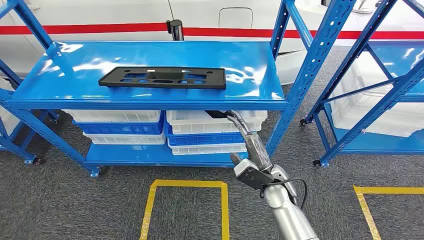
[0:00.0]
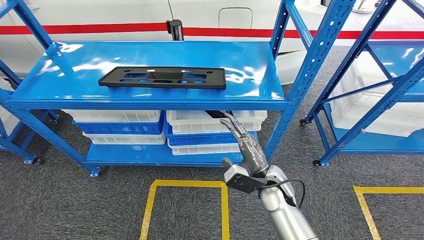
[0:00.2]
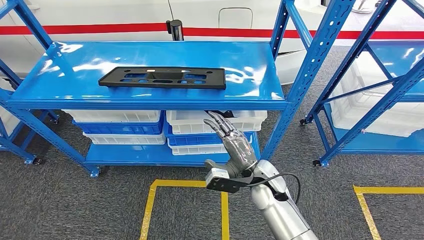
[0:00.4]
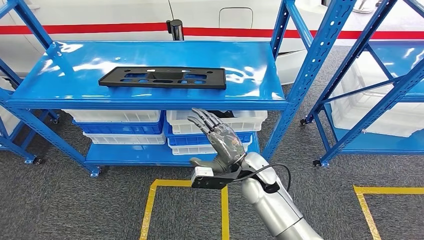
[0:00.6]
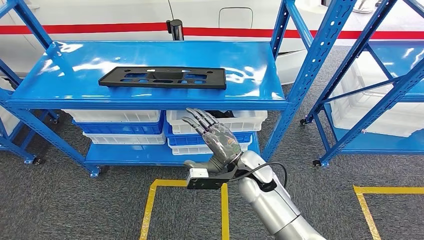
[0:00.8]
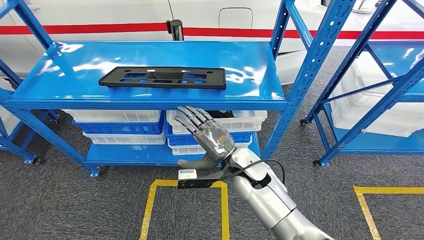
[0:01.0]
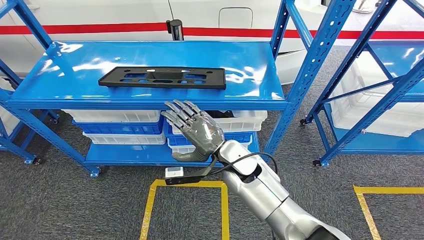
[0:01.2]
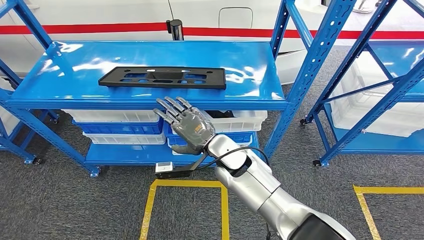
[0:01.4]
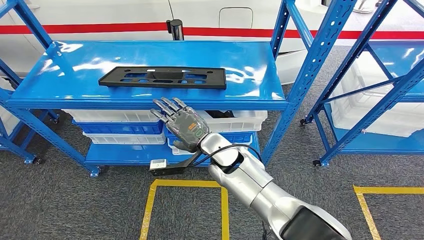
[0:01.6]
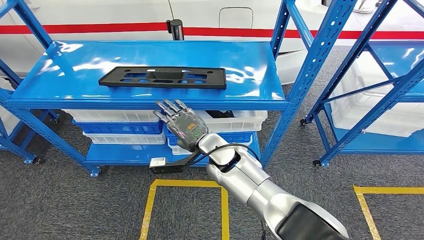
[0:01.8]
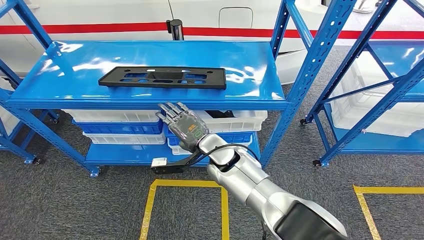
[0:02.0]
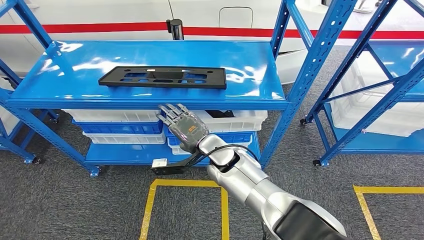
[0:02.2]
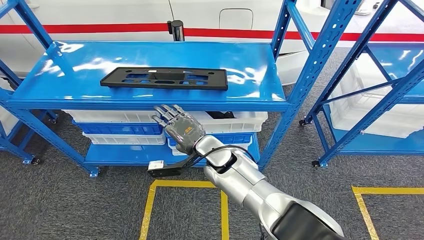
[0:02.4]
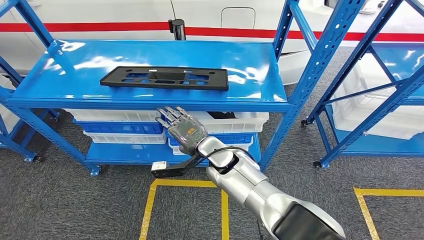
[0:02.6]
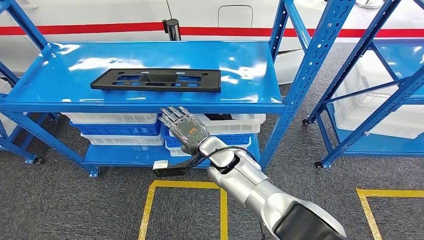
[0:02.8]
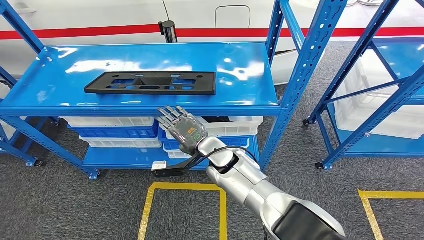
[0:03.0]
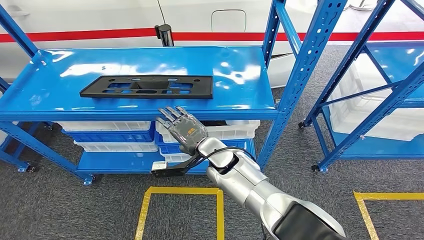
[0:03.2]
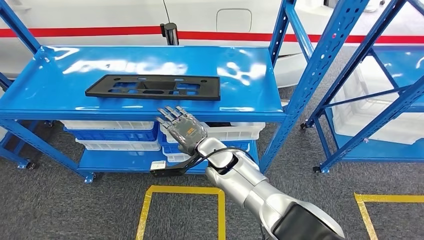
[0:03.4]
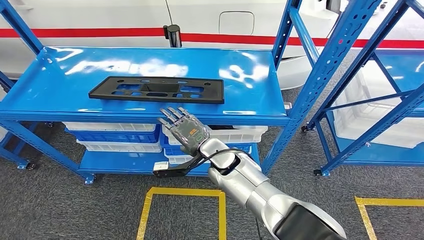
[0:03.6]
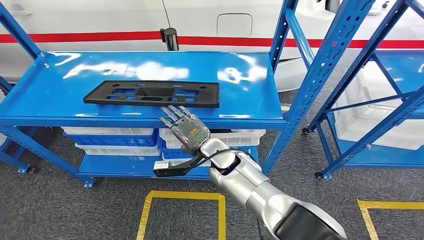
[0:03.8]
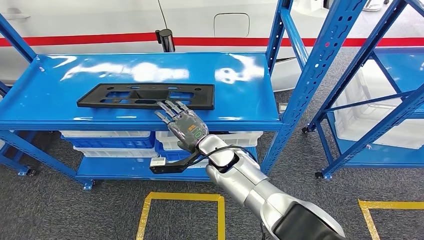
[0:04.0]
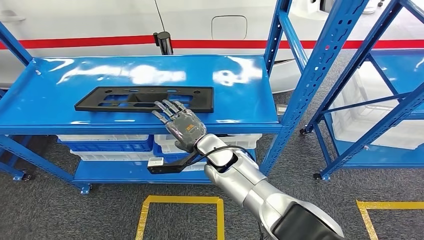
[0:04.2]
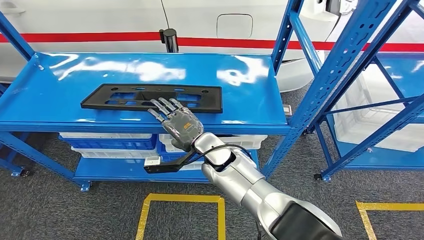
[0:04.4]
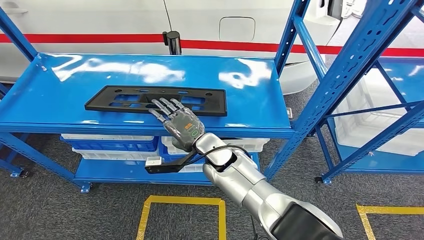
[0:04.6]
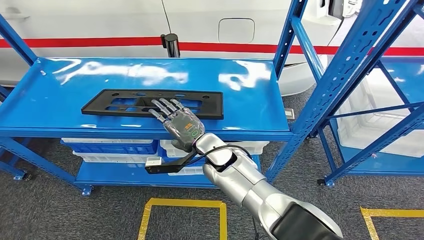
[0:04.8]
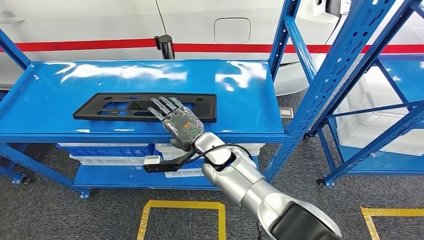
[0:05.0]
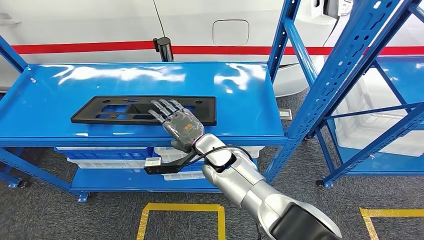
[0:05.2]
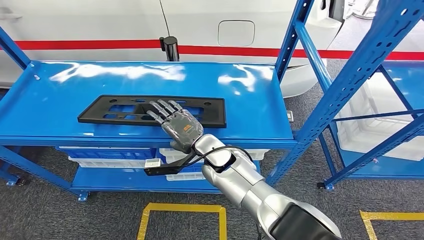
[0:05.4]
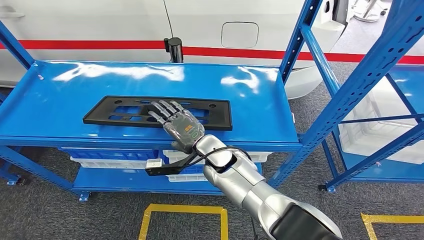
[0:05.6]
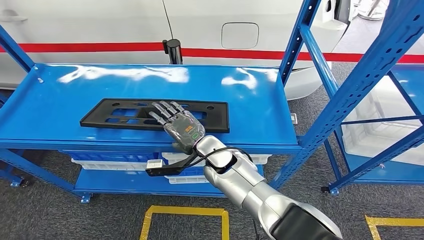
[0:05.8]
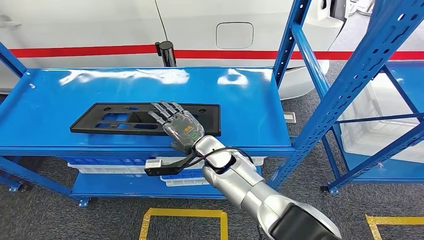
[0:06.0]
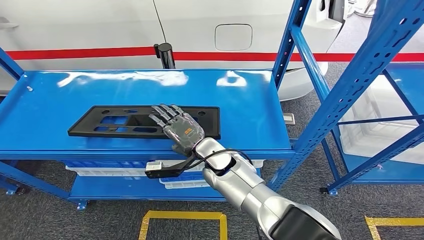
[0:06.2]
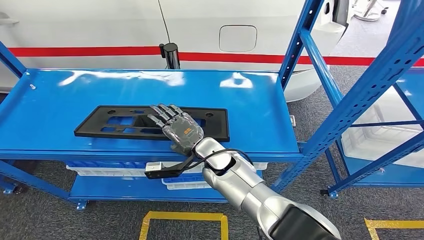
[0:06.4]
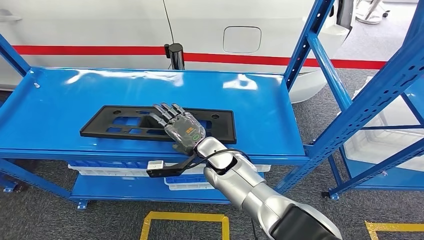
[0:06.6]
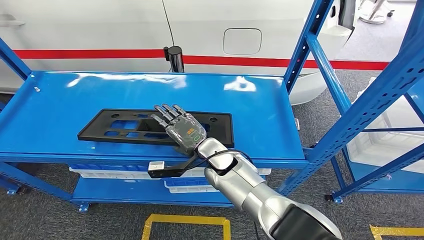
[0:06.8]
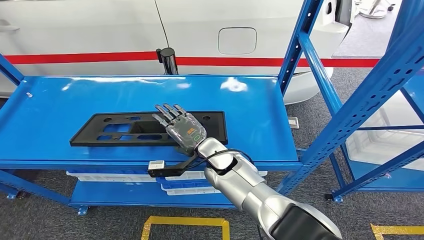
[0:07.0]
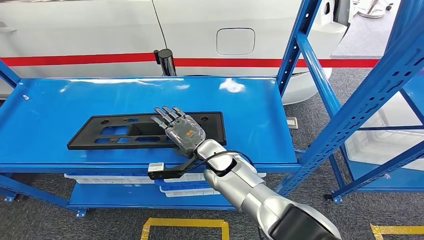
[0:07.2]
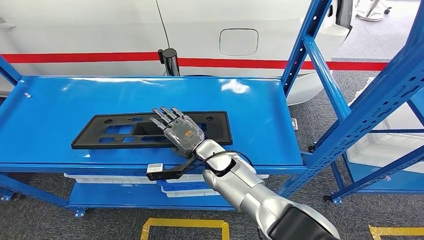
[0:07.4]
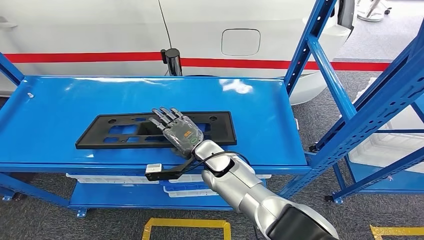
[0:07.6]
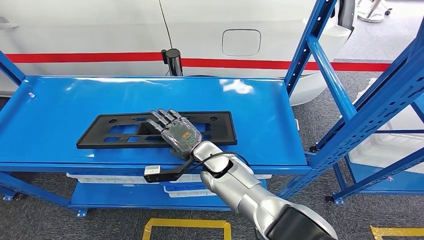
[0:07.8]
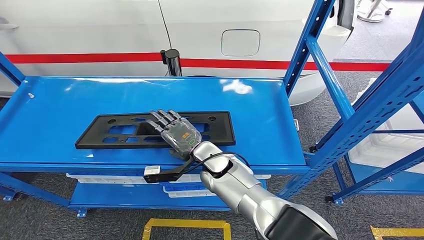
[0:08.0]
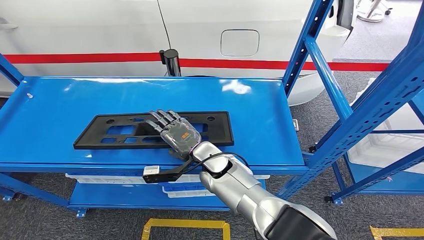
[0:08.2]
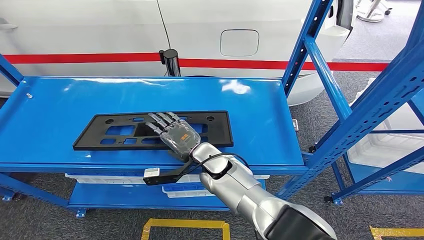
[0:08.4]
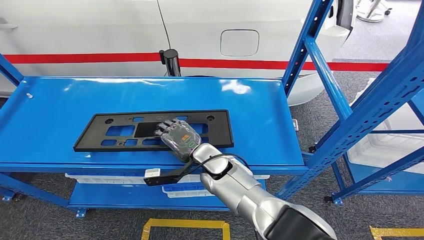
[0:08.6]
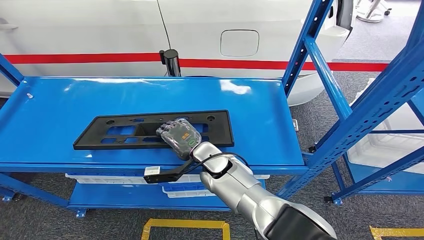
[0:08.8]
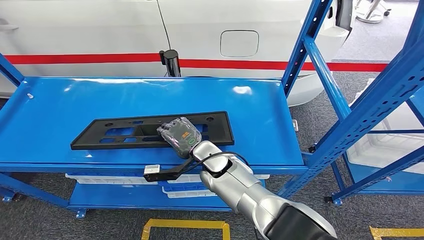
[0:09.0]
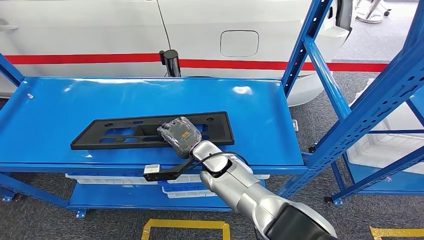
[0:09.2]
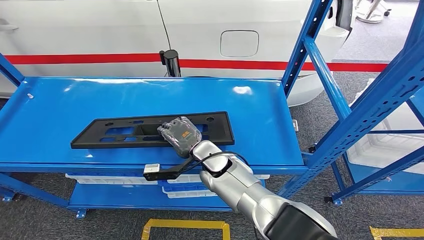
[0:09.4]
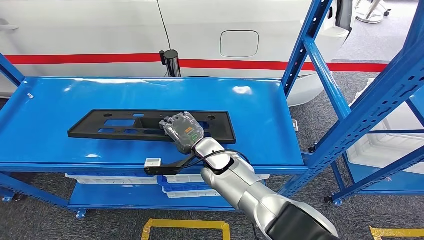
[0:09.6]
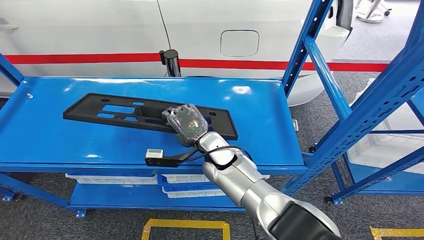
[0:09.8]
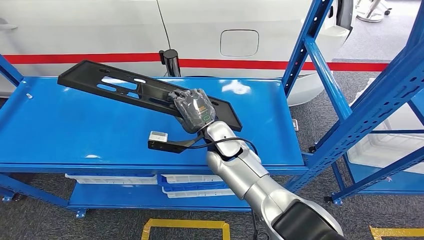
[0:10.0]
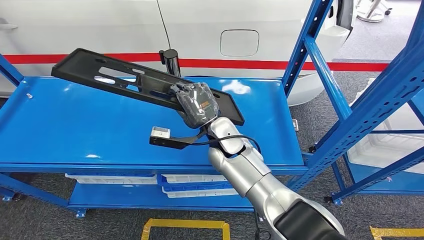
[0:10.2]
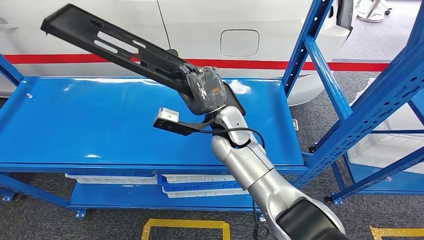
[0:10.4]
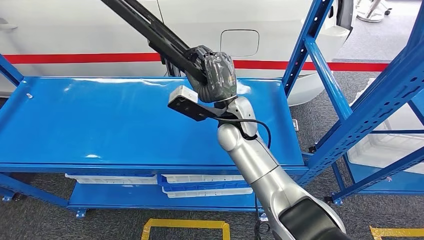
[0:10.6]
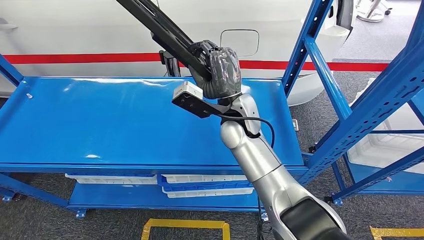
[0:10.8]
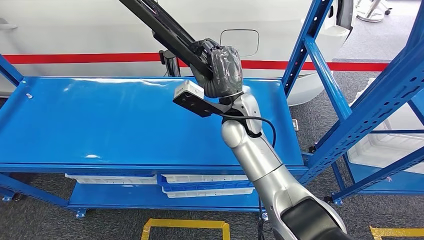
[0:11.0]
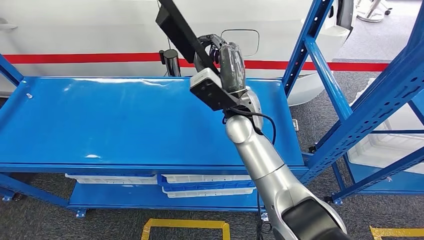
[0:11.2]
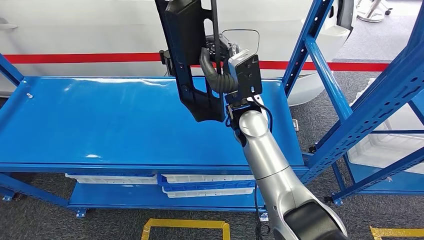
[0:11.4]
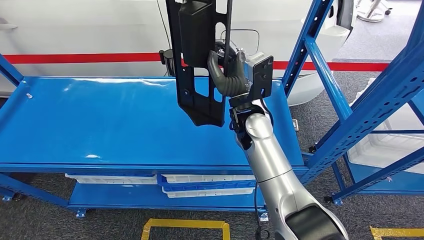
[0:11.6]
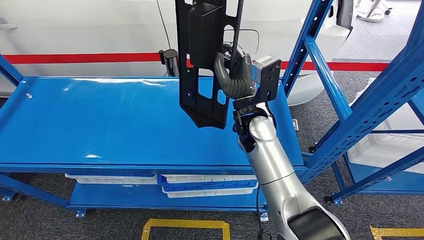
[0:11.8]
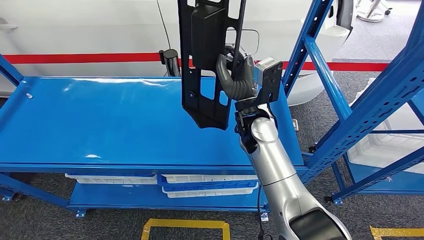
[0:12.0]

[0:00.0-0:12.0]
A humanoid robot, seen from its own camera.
0:07.6 to 0:09.0: Both hands stay about where they are.

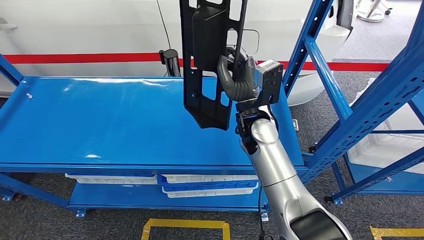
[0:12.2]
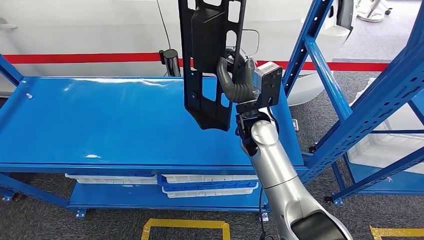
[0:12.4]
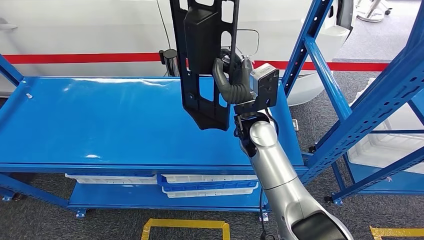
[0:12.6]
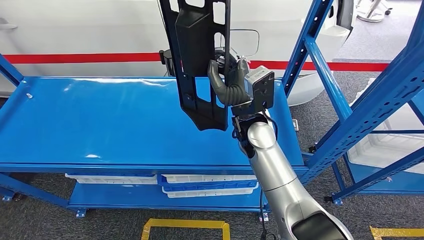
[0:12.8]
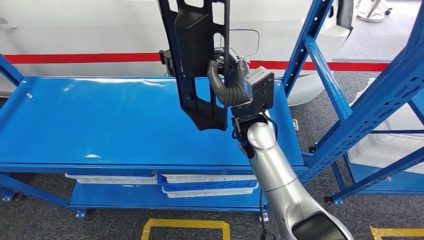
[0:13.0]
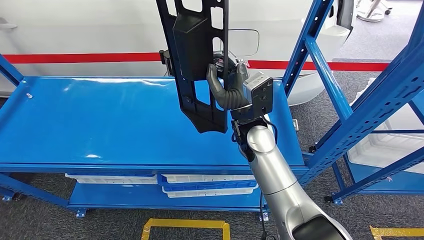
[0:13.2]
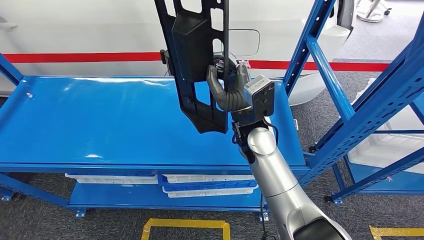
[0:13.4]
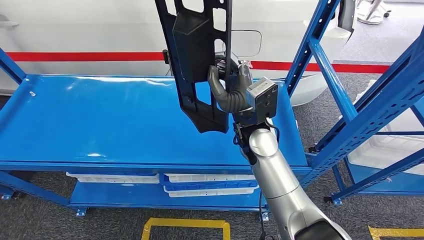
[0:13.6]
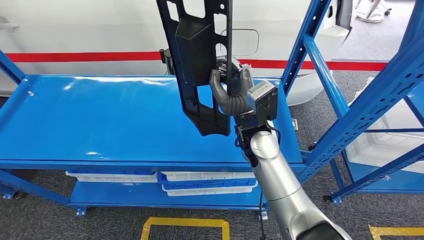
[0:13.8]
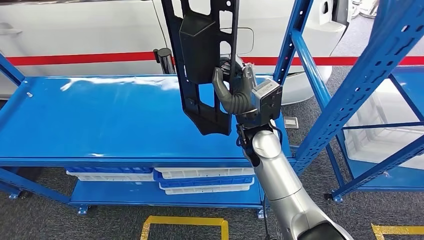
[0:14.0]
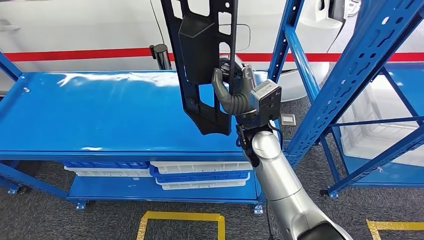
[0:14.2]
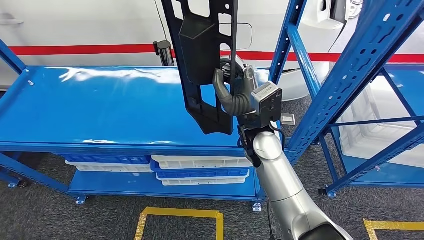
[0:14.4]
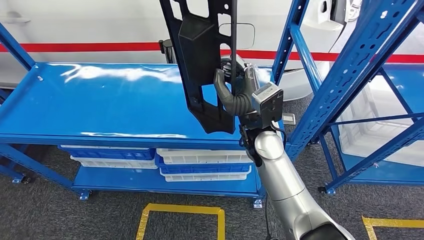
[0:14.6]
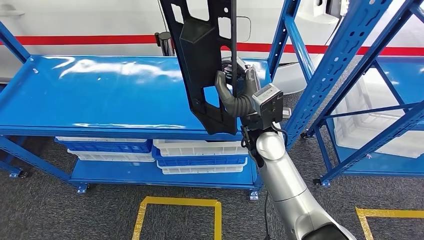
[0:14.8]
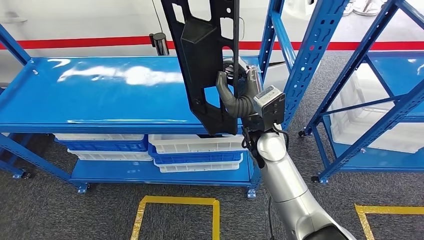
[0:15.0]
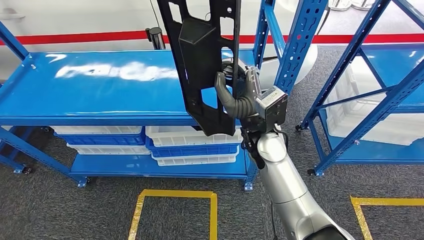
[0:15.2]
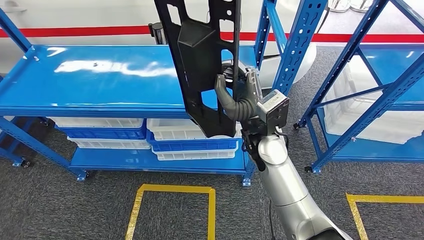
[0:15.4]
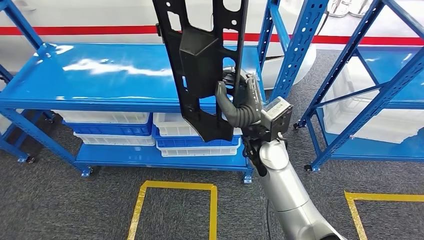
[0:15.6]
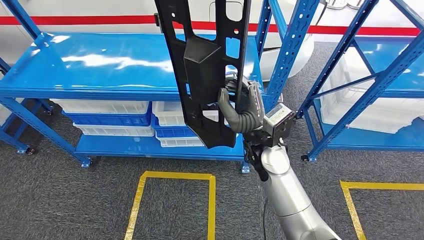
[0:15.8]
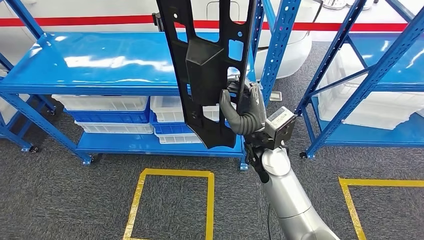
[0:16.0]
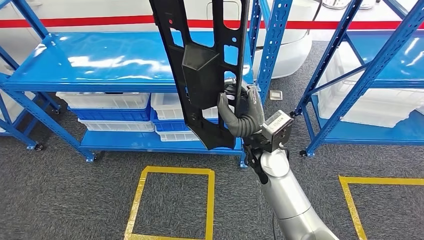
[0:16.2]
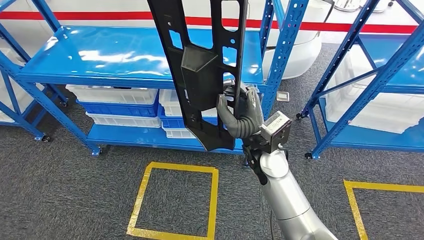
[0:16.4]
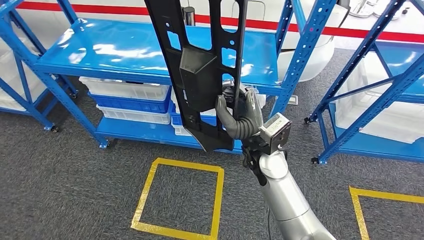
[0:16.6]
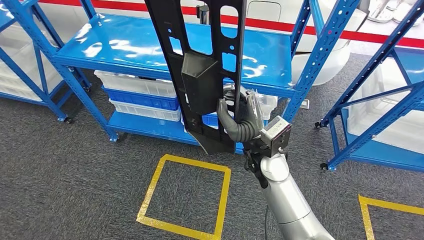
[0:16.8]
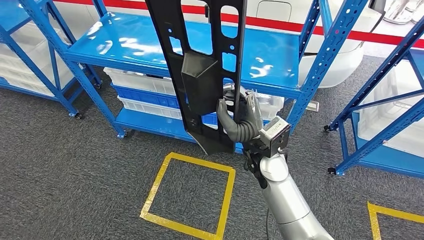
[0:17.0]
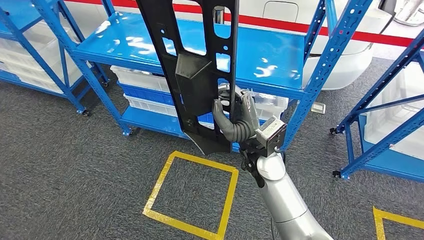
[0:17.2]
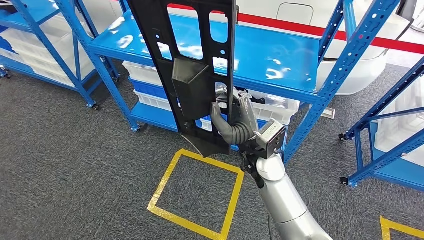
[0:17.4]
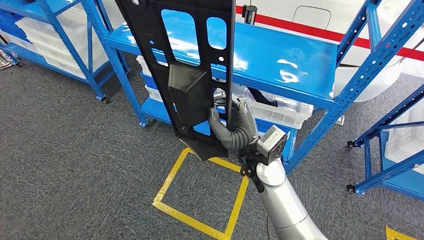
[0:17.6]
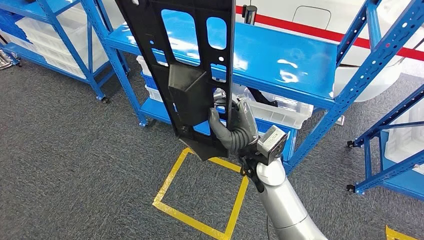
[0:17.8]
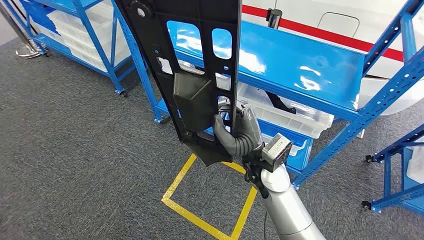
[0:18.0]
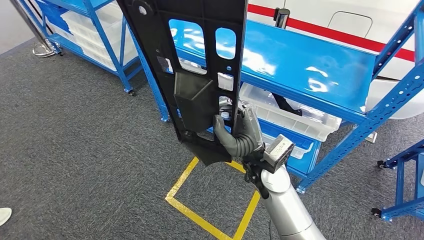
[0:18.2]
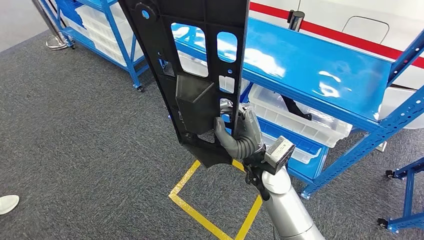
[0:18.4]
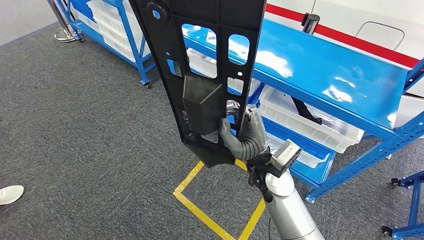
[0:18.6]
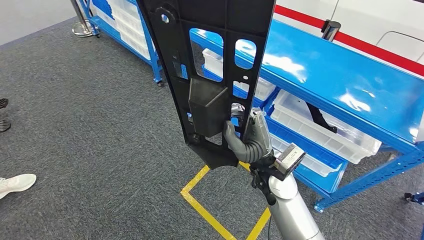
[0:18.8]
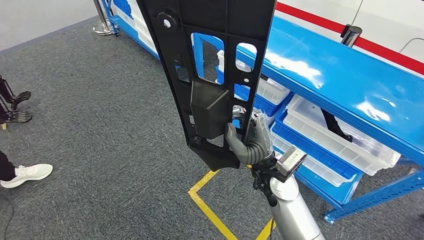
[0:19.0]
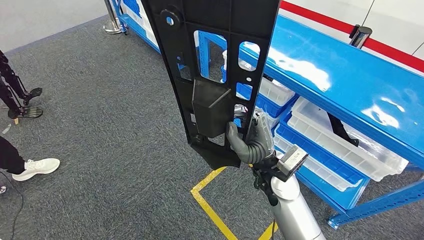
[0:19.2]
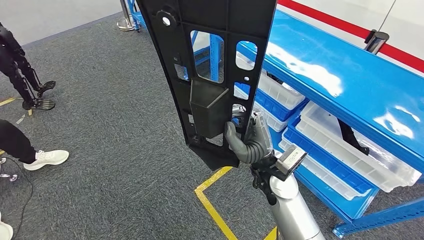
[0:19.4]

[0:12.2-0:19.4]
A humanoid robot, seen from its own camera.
Step, 0:12.2 to 0:14.4: Pick up the large material from the shelf.
